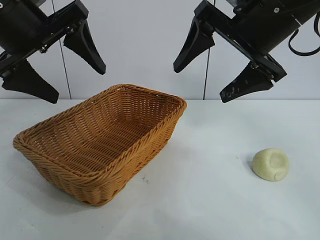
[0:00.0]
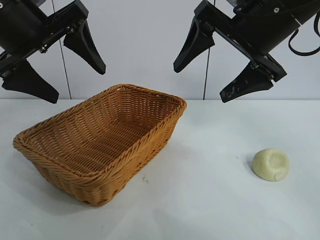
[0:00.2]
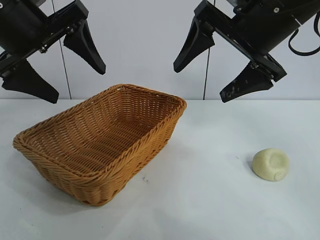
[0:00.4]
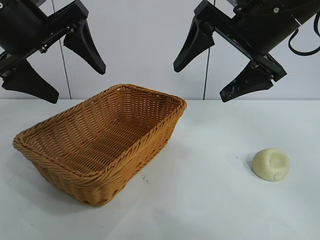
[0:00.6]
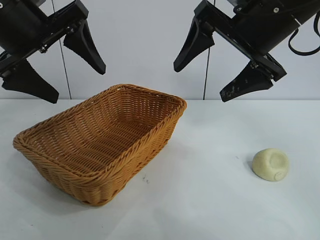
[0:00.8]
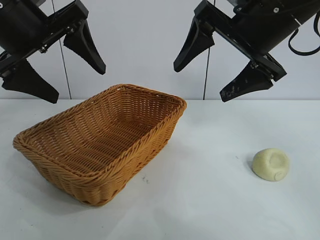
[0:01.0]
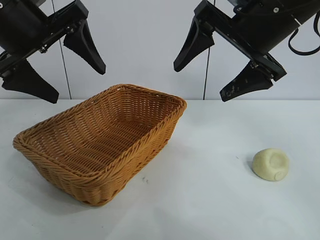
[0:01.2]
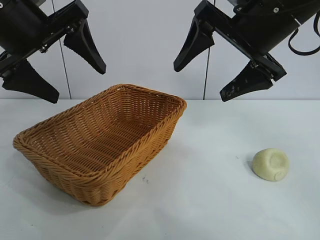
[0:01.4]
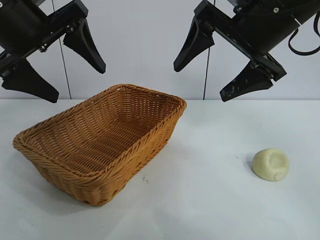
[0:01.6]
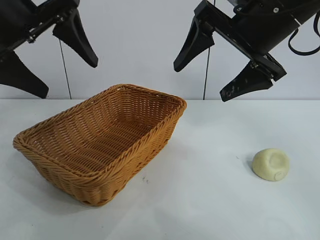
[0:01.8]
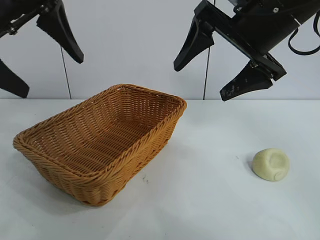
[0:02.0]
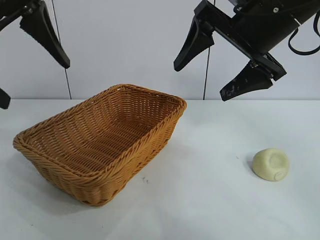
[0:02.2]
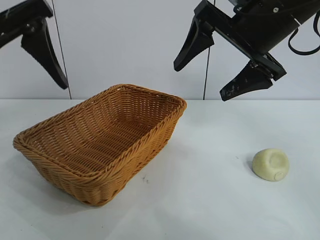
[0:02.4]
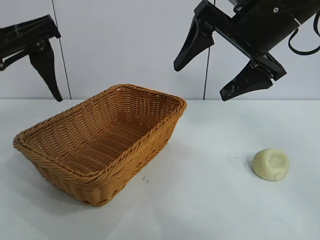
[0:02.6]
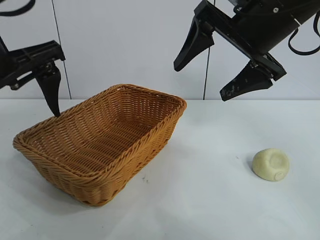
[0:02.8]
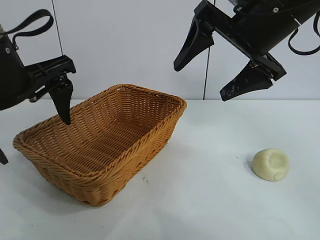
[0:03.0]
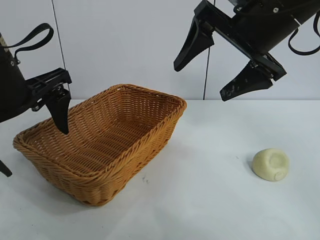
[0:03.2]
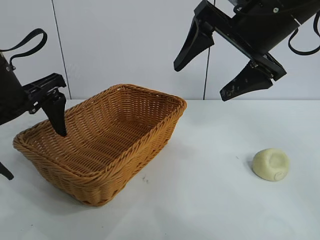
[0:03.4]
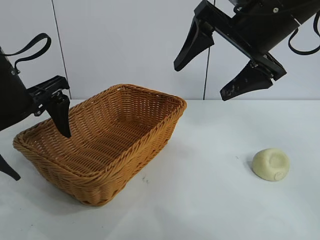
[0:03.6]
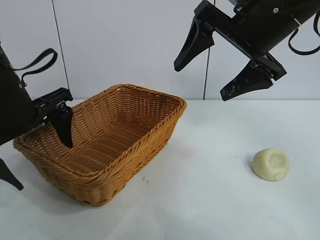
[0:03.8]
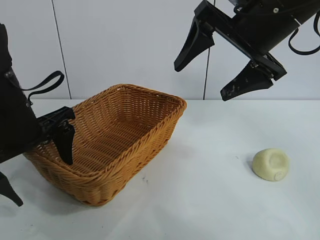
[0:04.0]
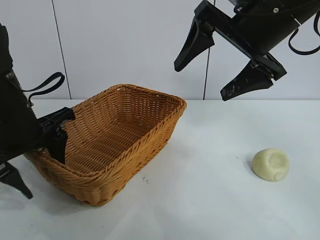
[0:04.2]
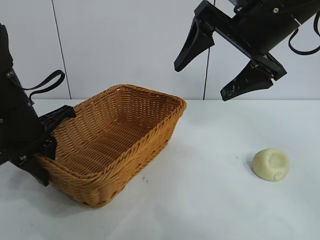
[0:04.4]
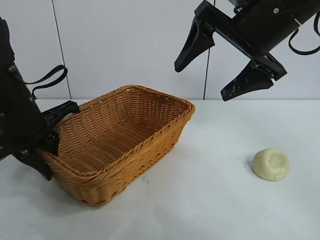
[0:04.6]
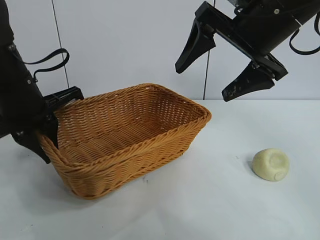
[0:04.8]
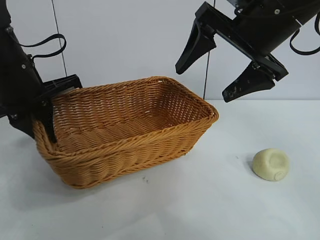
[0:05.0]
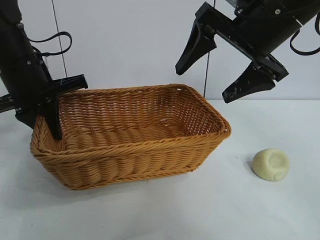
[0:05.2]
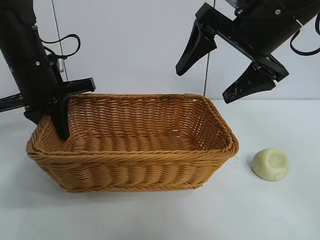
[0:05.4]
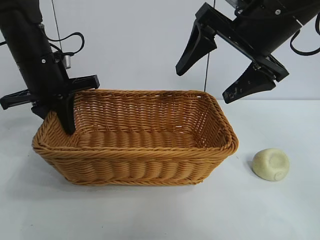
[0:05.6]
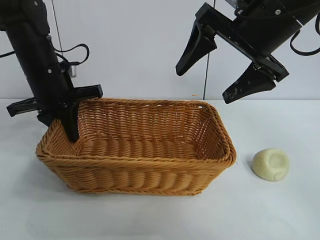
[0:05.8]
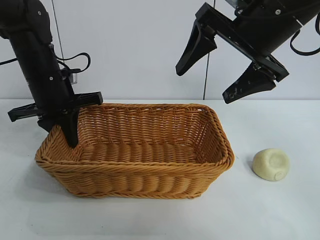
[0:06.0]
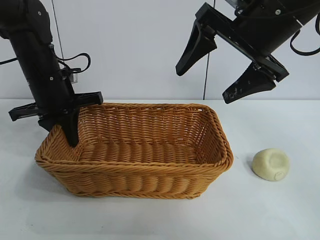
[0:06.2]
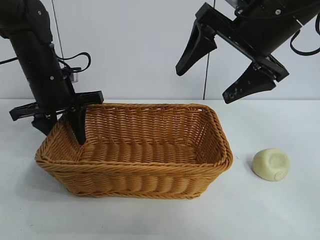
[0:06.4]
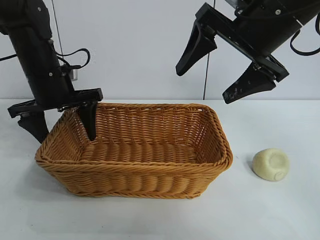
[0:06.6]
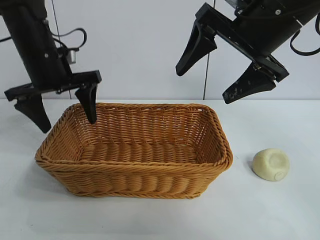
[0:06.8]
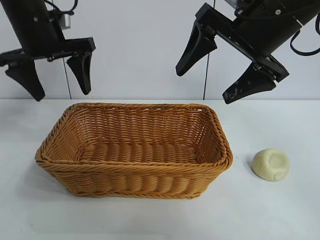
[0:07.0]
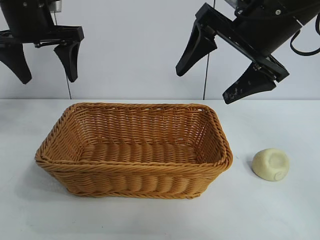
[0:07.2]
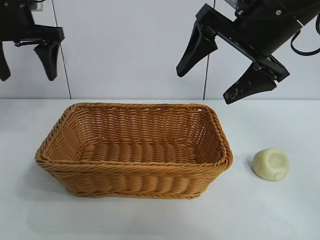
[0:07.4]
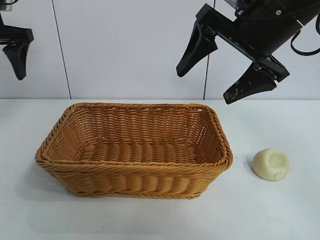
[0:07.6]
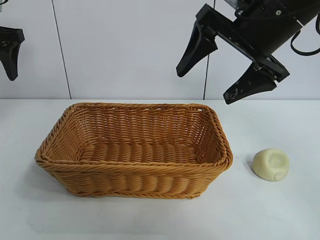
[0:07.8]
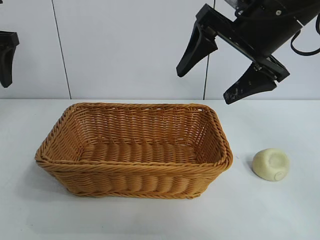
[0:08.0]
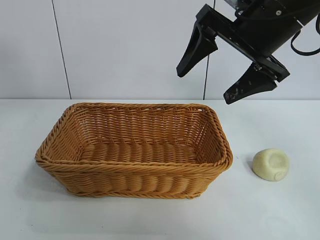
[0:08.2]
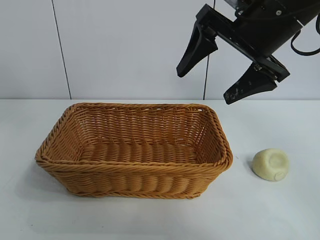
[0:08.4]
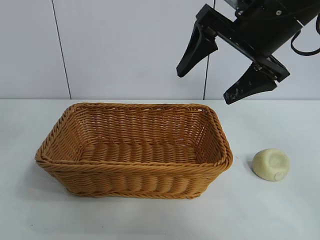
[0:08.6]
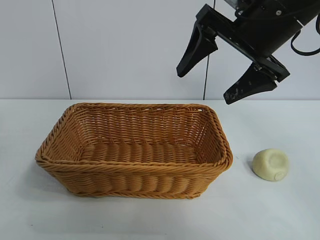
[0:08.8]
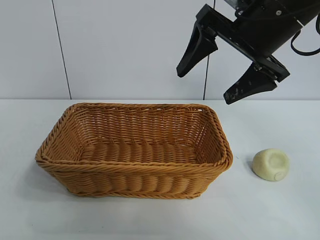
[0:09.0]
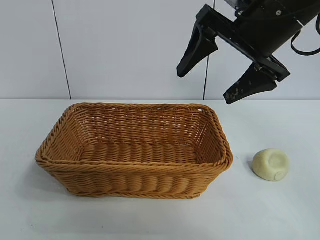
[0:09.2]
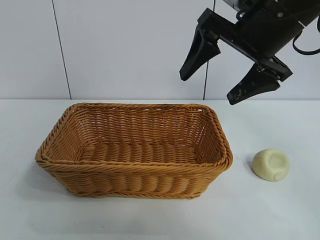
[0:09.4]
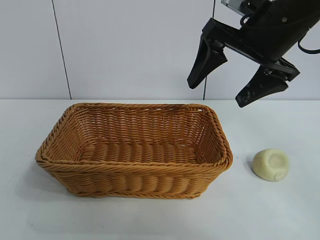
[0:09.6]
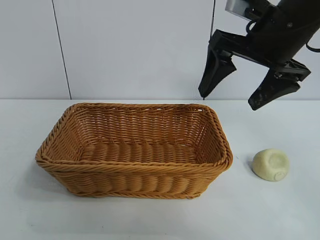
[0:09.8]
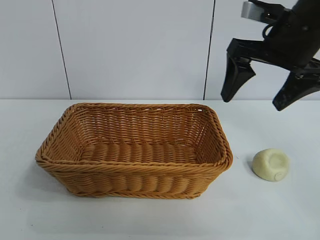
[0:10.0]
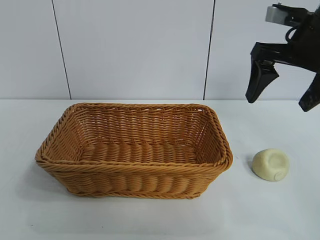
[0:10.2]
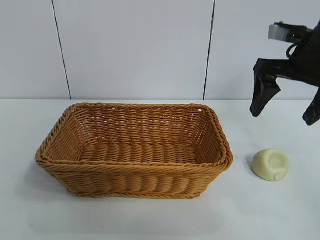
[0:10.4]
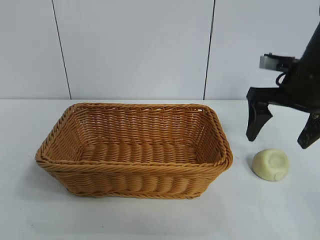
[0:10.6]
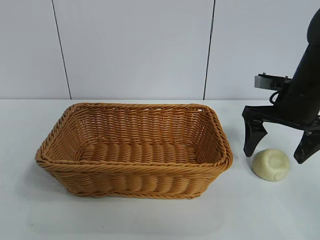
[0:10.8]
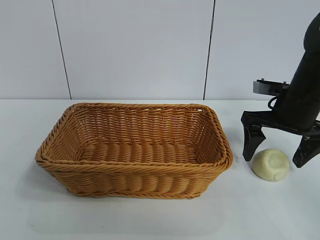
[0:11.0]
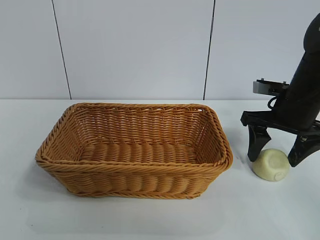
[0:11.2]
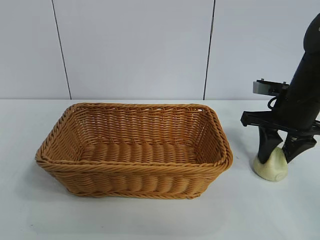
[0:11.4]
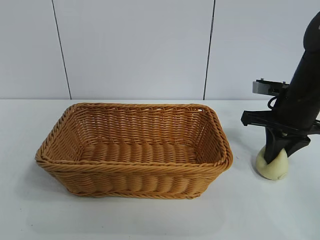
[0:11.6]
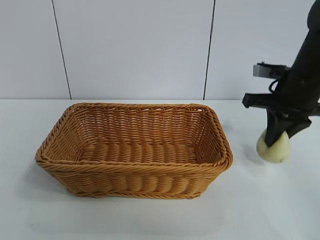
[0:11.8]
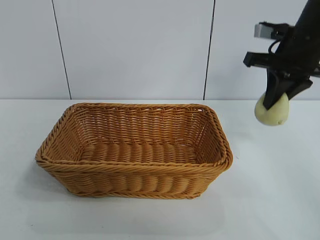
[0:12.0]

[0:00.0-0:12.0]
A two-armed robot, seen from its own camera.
Task of the whole recording: pick up the egg yolk pastry and put it into the basket.
Step, 0:00.0 to 0:04.4: Grasp the basket with left gripper.
Step, 0:04.6 to 0:06.4: Place the basket in the center of view with left gripper.
Step, 0:06.6 to 0:11.4: Grasp egg yolk pastry with right gripper.

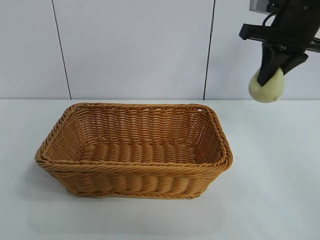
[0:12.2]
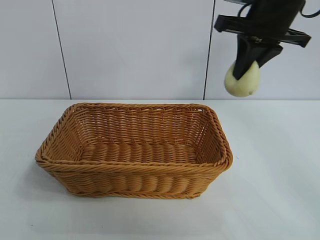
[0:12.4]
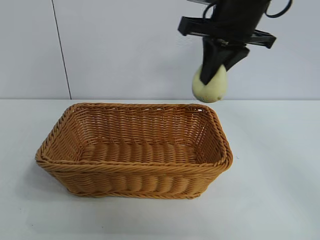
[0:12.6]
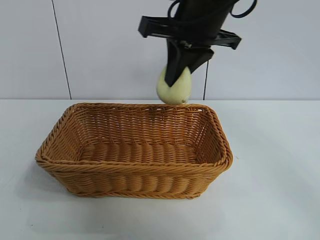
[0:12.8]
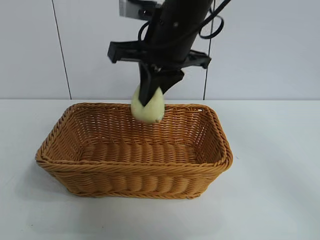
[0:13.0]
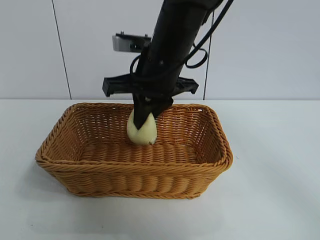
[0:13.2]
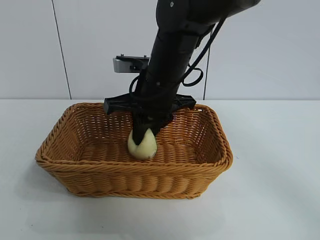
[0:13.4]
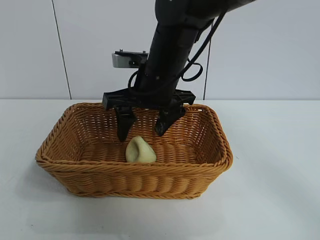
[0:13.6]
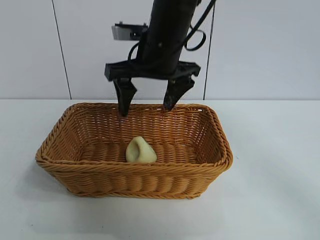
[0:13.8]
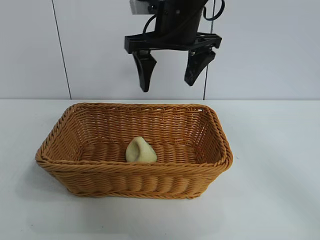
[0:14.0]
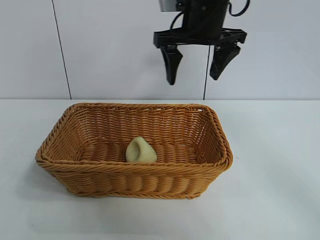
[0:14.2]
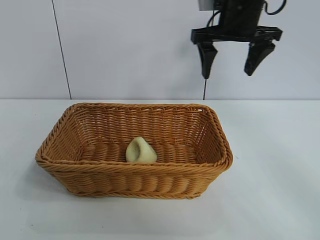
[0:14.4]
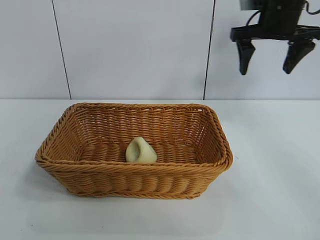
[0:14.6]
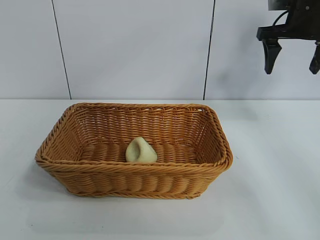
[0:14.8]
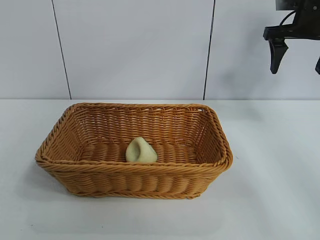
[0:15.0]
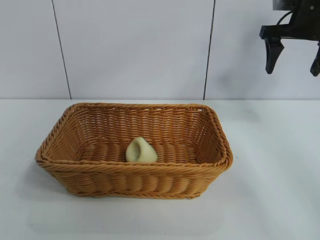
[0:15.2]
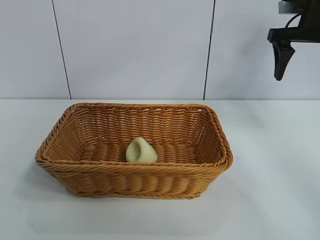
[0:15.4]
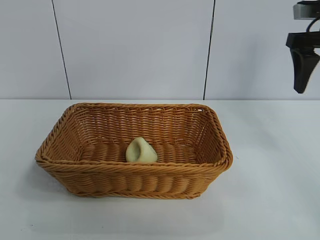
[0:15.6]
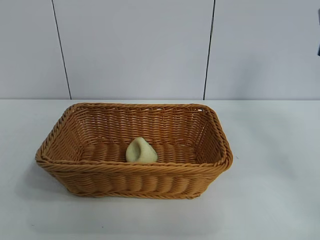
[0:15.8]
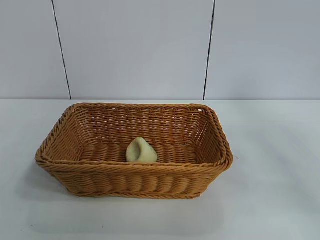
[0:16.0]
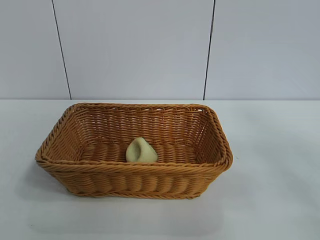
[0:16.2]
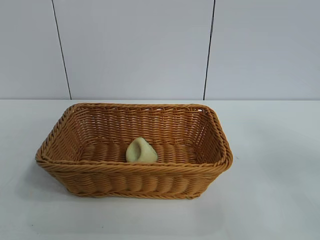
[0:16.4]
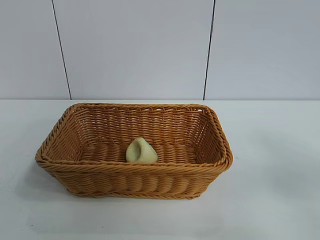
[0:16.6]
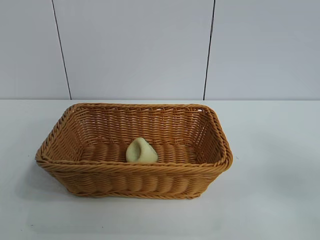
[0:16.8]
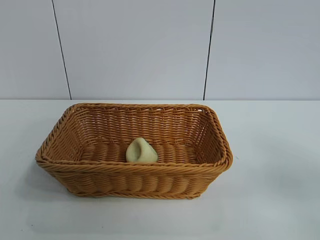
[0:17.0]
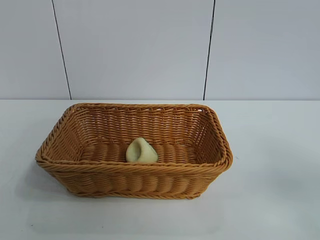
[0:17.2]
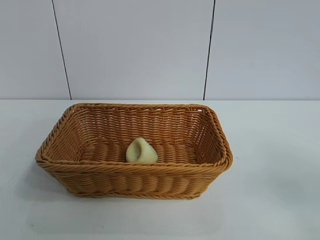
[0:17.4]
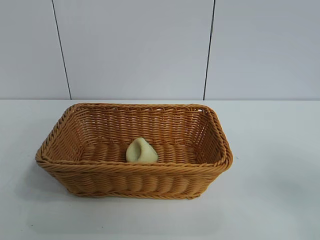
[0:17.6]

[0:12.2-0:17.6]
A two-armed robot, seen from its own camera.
Task of the whole recording: pick up the egg yolk pastry and put it into the basket.
Step, 0:12.2 to 0:13.4: Place the egg yolk pastry in the basket with right gripper.
